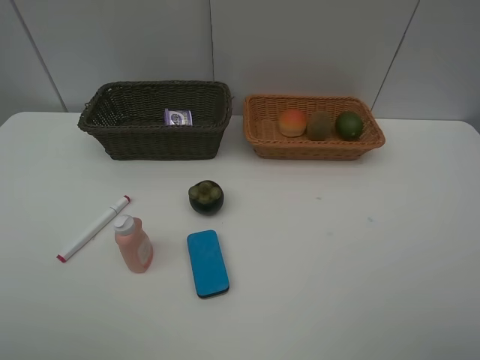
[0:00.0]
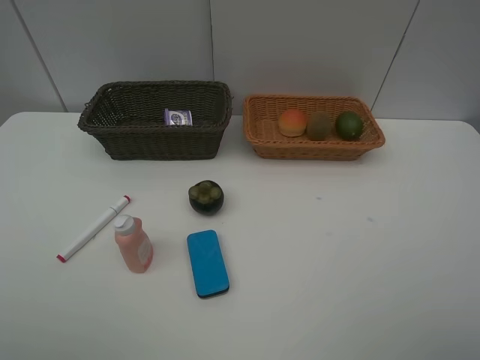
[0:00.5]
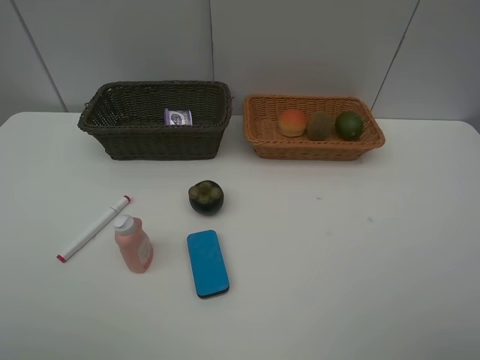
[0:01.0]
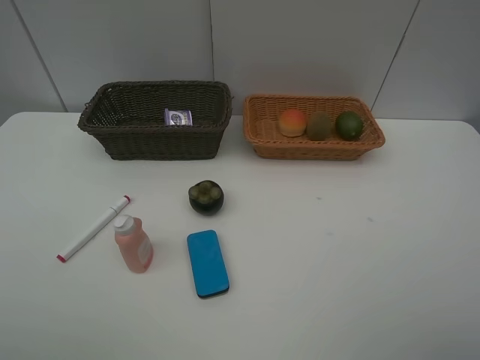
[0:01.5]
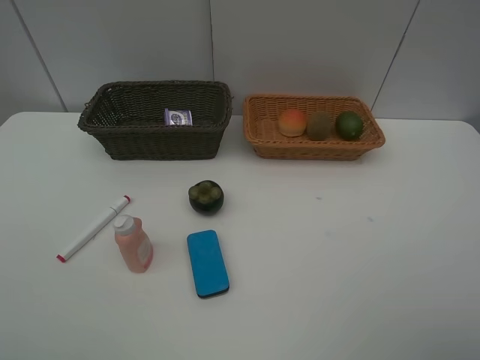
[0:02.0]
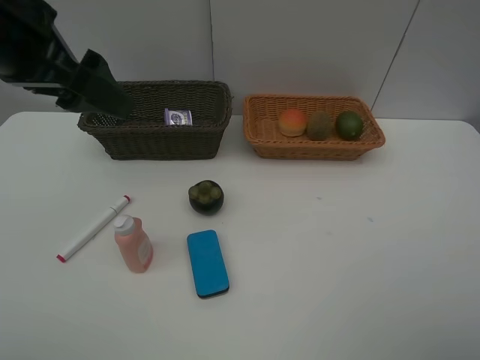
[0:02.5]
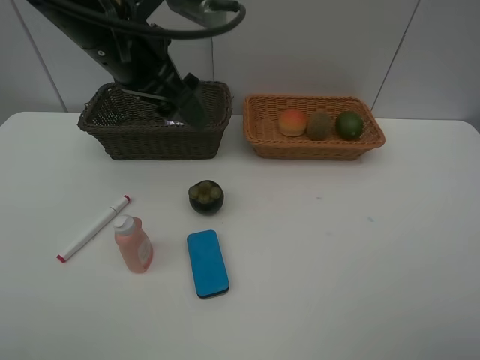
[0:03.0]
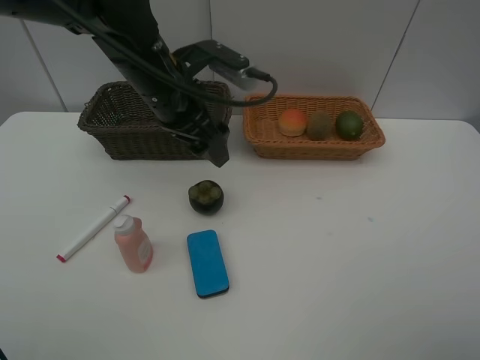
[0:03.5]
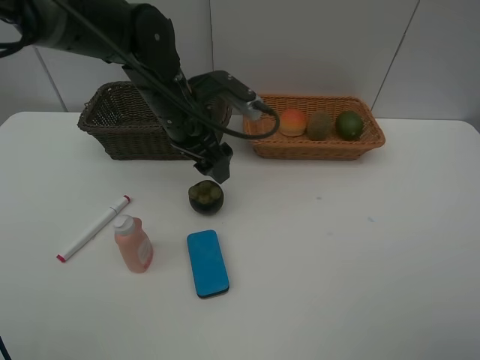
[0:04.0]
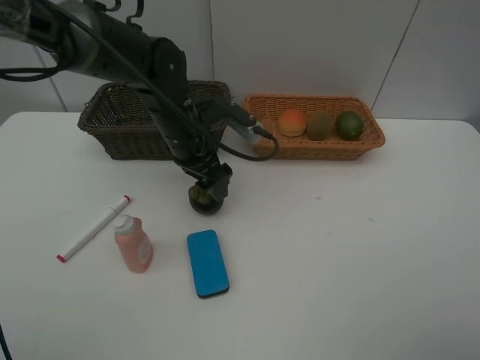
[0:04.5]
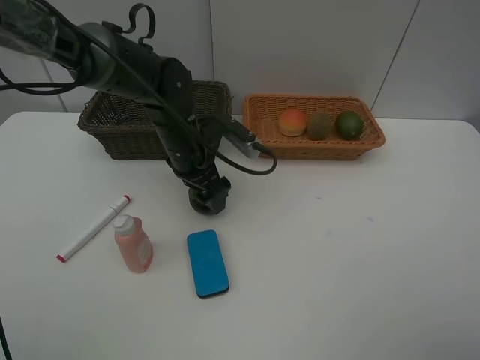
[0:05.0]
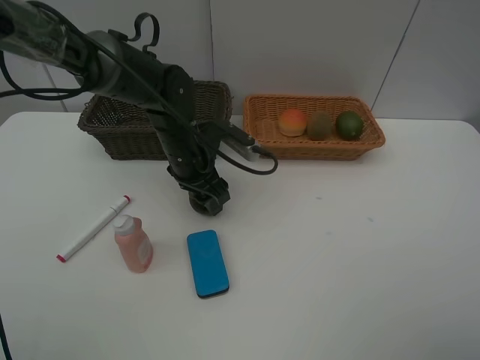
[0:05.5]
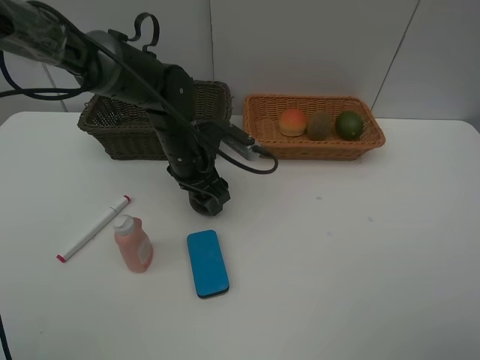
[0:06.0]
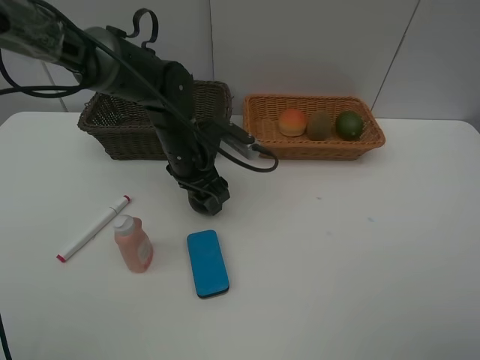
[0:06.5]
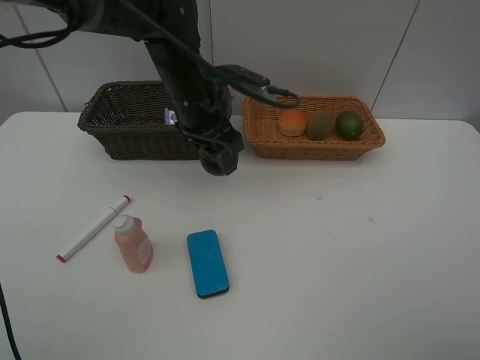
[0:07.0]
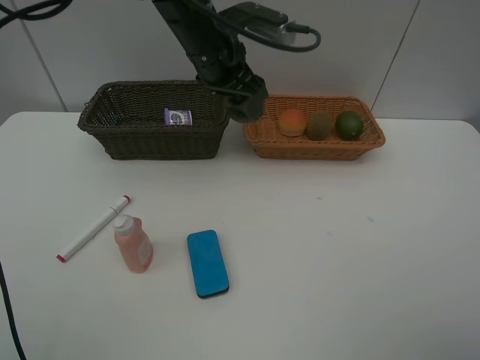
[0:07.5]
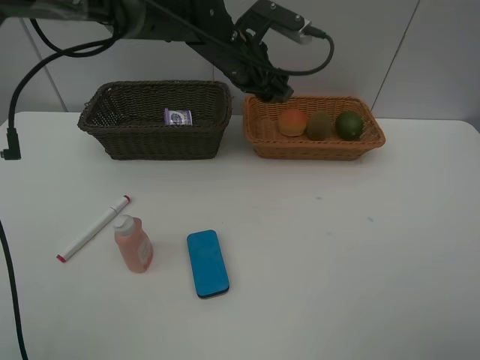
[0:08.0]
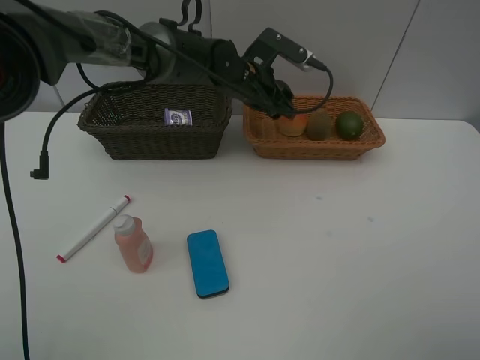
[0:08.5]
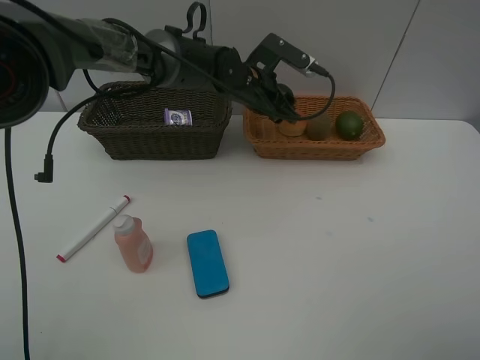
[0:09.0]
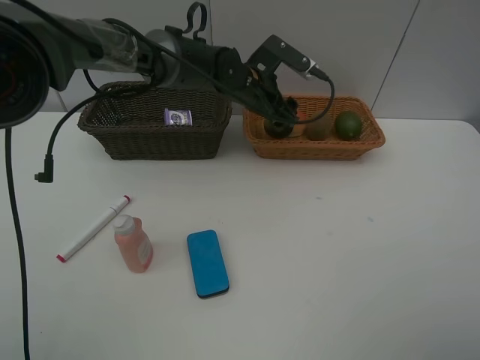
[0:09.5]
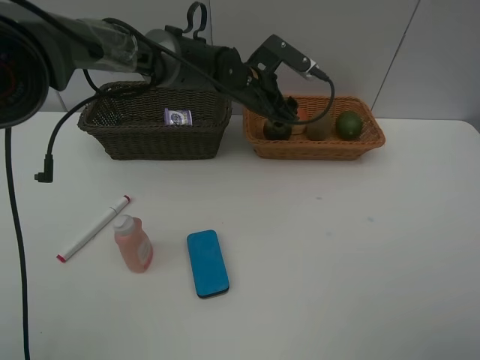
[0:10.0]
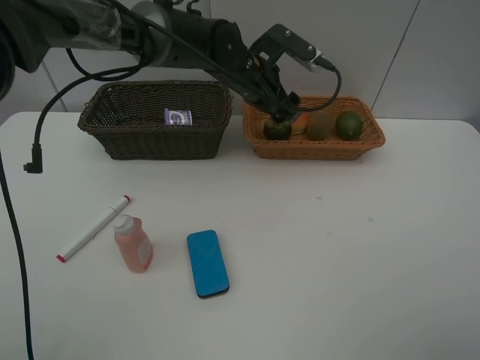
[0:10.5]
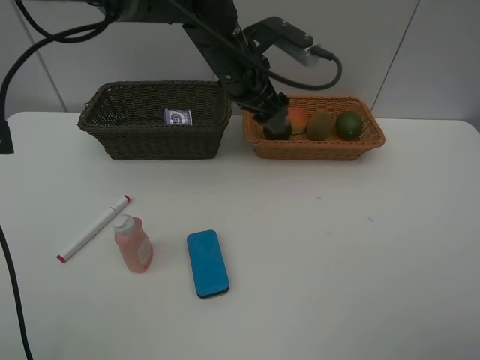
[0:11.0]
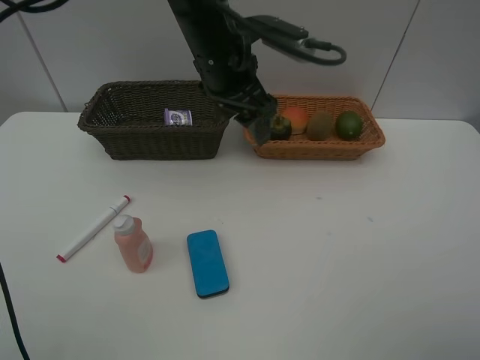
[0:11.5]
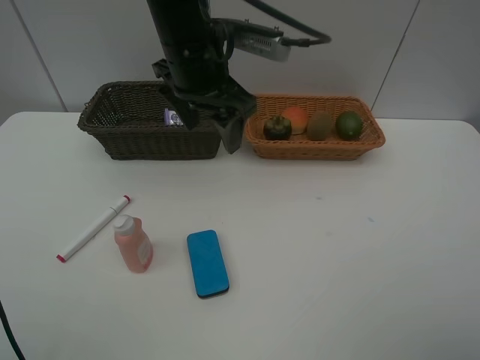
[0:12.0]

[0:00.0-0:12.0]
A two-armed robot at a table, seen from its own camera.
Task of the whole recording: Place multiple objects separately in different baskets.
Step, 0:00.0 to 0:06.5: Pick up the mangosteen with left gripper.
Step, 0:07.0 to 0:10.0: Place the mangosteen in the light basket with left gripper.
0:02.0 to 0:04.0: The left gripper moves forward, to the right and downward, about 35 cm.
0:04.0 to 0:06.0: The left gripper heads downward, covering about 5 cm.
0:06.0 to 0:08.0: The left gripper moves upward, forward and to the right, roughly 15 cm.
0:08.0 to 0:10.0: The left gripper moves downward, about 5 cm.
0:10.0 to 0:12.0: The left gripper is displaced upward, backward and to the left by about 15 cm.

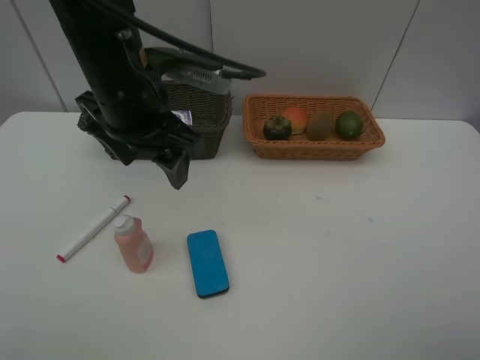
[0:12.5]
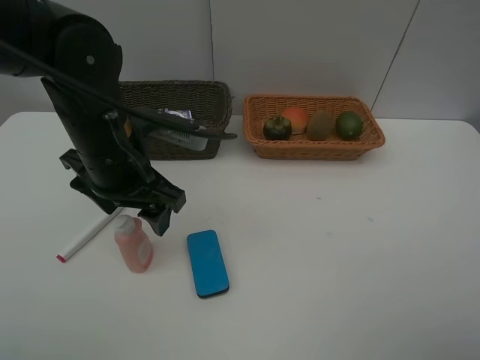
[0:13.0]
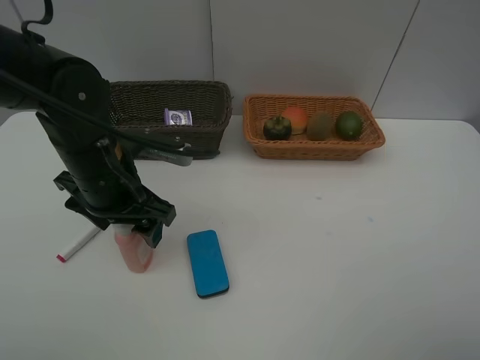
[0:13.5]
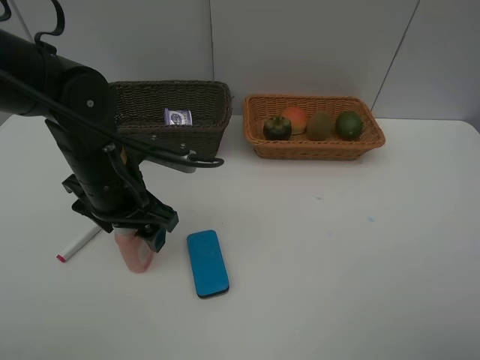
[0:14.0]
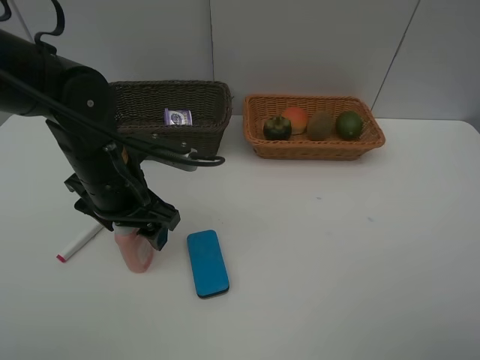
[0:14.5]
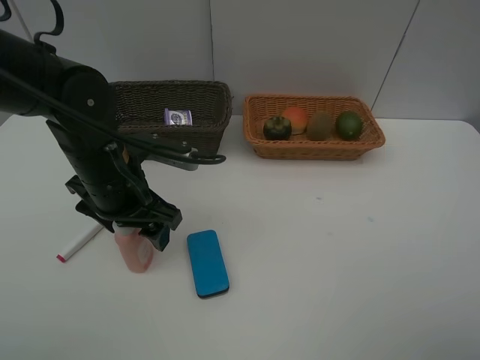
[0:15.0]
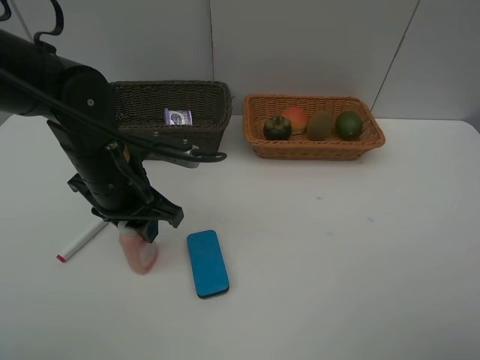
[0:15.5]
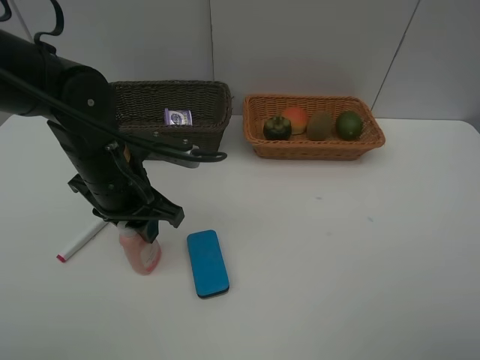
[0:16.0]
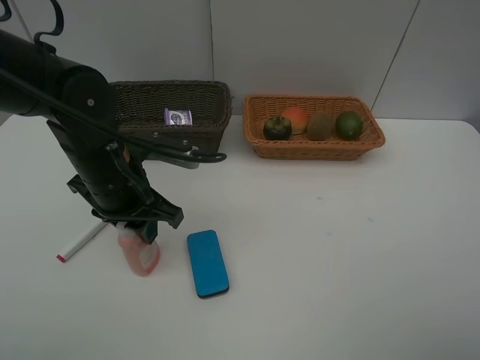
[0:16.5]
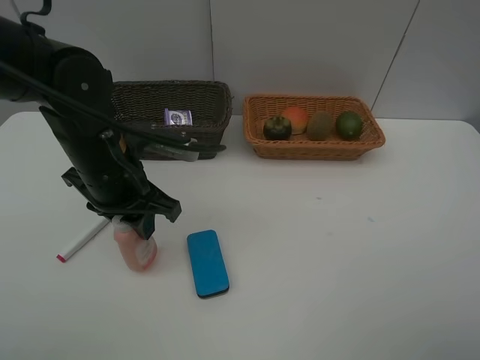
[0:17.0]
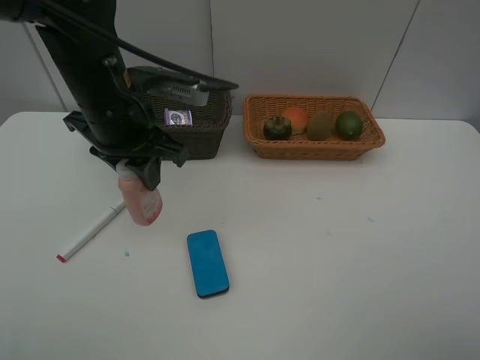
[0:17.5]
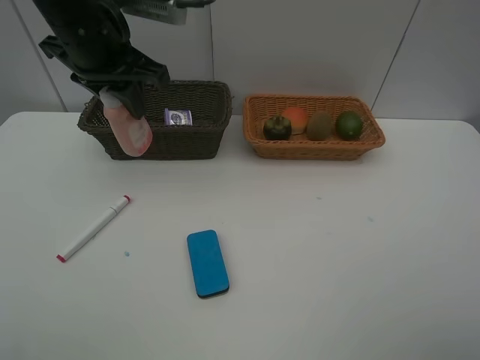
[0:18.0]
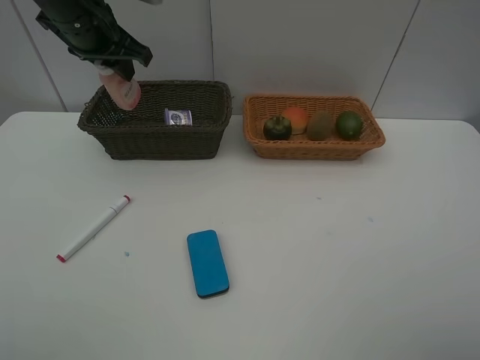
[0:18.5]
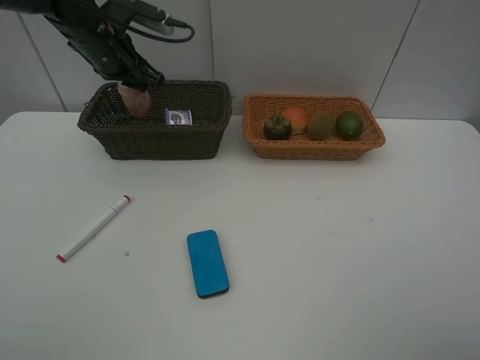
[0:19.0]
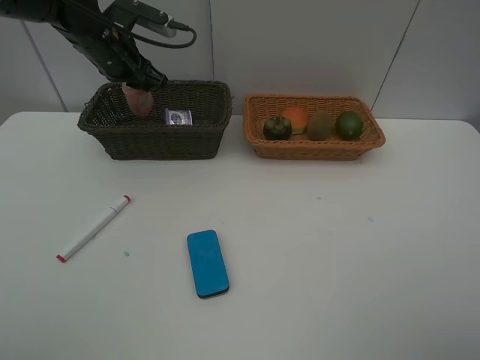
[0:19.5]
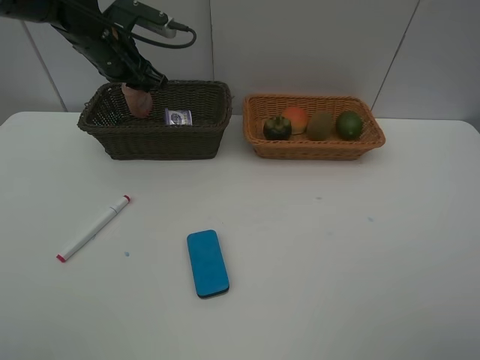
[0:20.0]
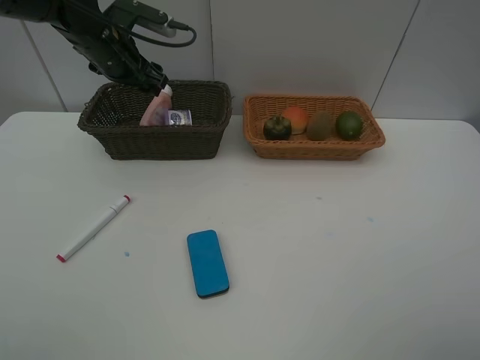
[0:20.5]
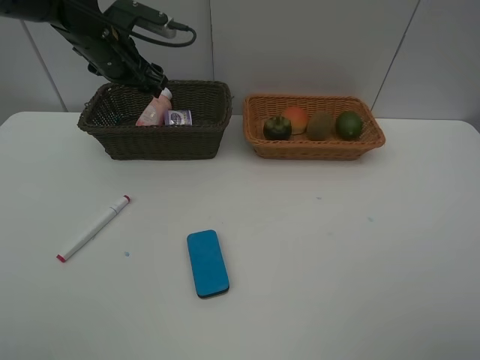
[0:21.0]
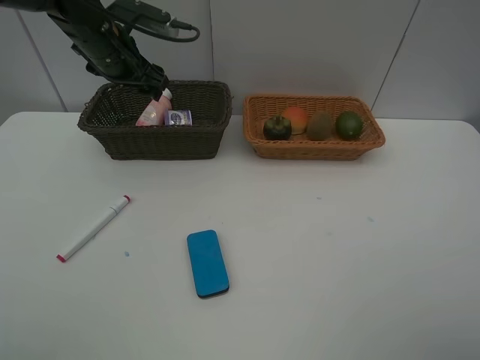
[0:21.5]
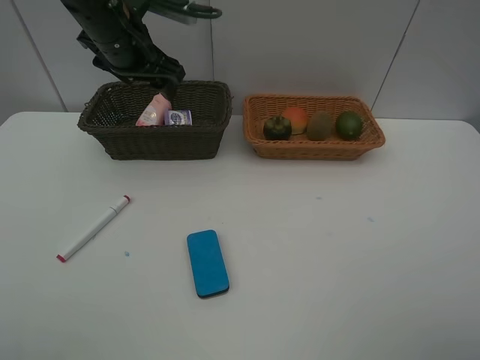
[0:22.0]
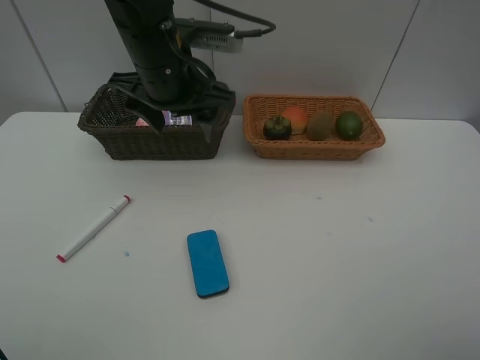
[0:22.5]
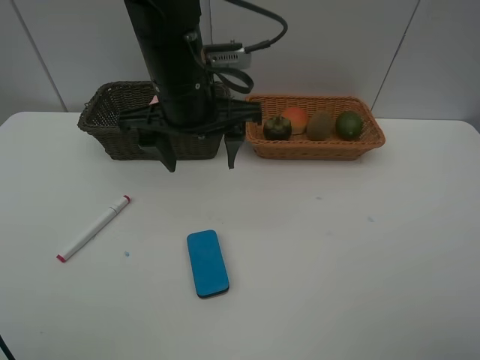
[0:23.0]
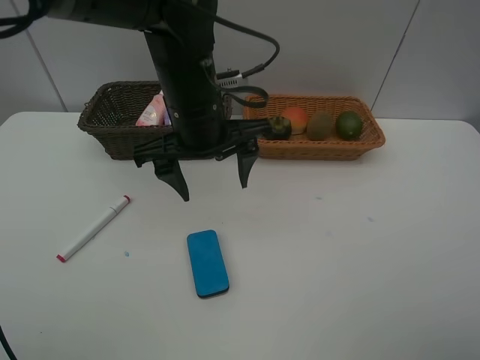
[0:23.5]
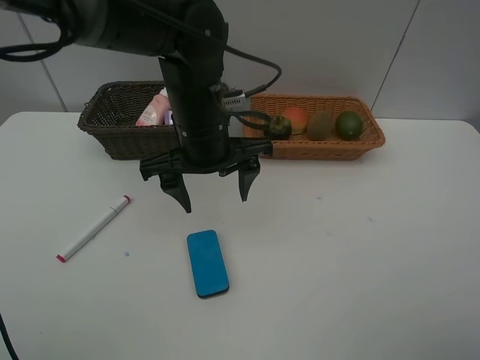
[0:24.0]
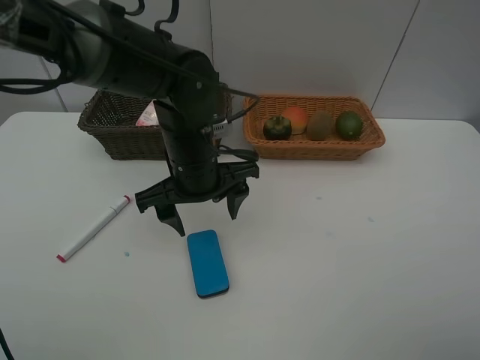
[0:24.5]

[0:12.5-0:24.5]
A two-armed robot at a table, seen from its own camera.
Task of the whole recording: Place multiple objects separately in different baskets.
Step, 0:12.5 to 0:17.0: Pick up the laundry detergent with left gripper.
Step, 0:17.5 to 0:20.5: Place the laundry detergent in the dark basket with left gripper.
0:12.5 to 0:14.5: The left gripper travels downward by some 10 cm.
0:14.5 to 0:16.5: The left gripper closes up.
0:16.5 to 0:18.5: The left gripper moves forward and upward, approximately 20 cm.
0:18.5 to 0:20.5: The left gripper shifts some 5 cm downward, and opens its fingers.
0:20.5 to 0:22.5: The left gripper moves to the right and backward, roughly 15 cm.
0:22.5 to 0:24.5: The left gripper goes roughly 10 cm downward.

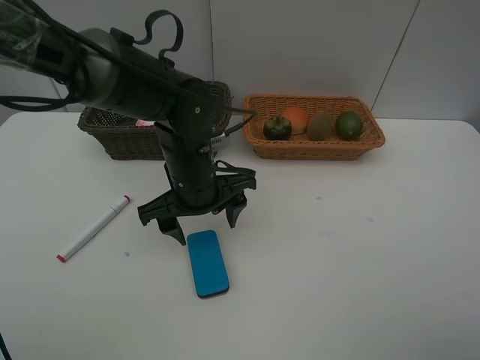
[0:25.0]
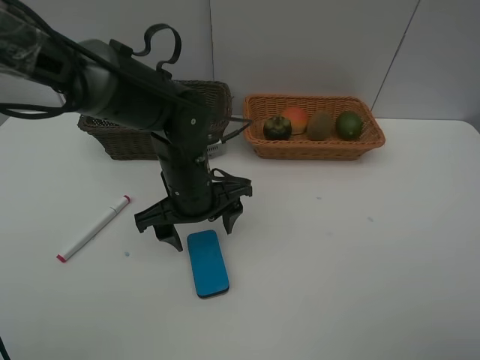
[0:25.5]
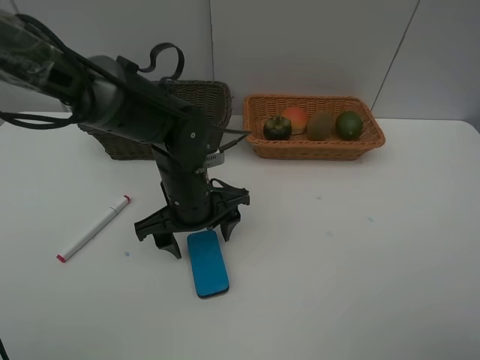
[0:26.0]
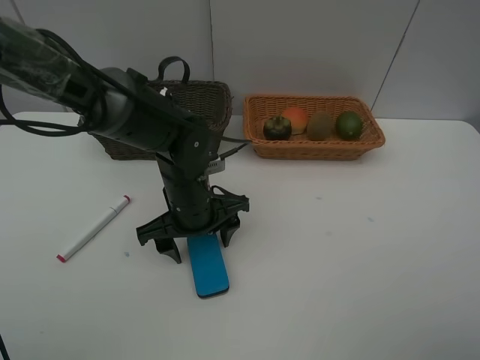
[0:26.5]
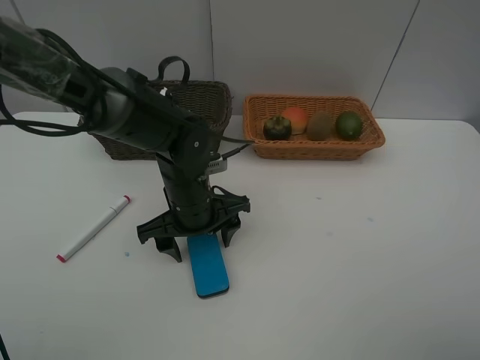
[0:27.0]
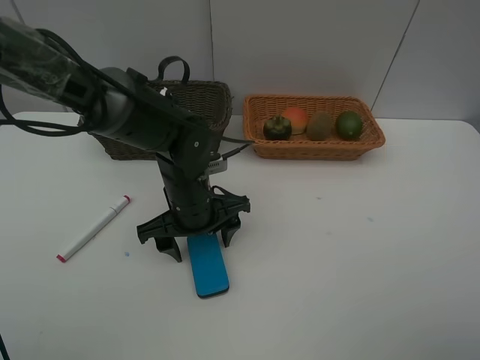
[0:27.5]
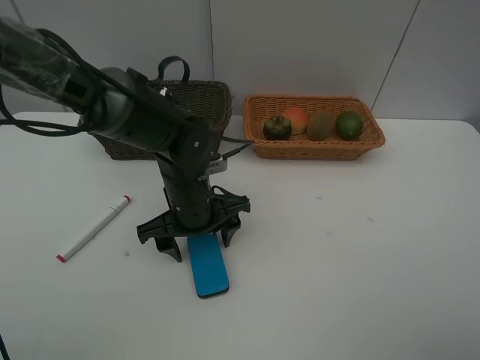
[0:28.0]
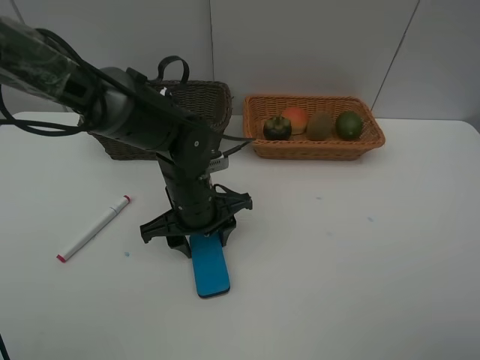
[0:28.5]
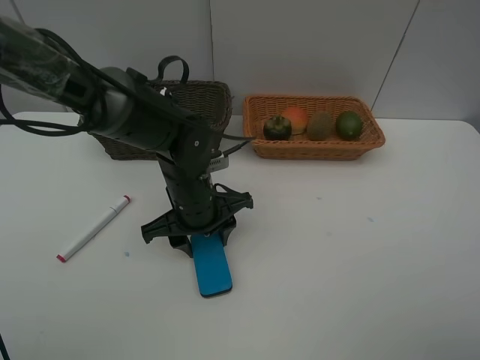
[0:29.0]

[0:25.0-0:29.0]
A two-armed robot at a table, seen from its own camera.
Task of the whole recording: Place multiple objects separately in different baskets.
0:25.0 to 0:27.0: The grippers move only a little.
0:27.0 to 0:29.0: The left gripper closes its fingers.
